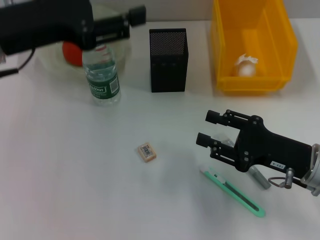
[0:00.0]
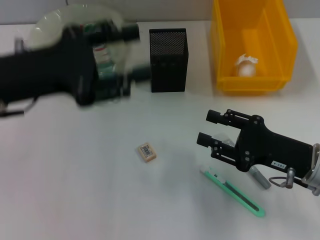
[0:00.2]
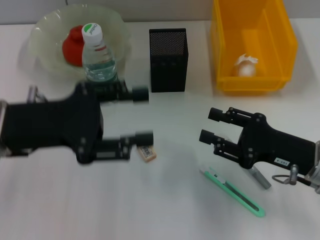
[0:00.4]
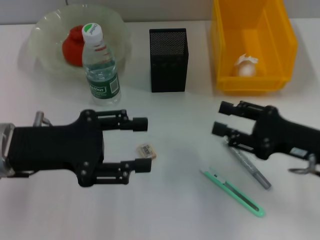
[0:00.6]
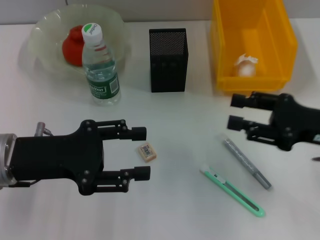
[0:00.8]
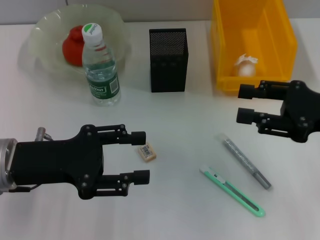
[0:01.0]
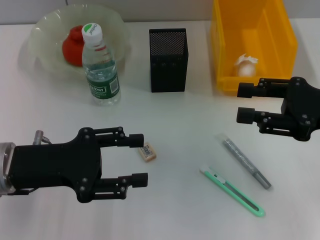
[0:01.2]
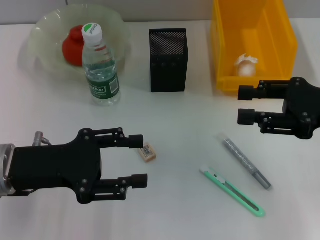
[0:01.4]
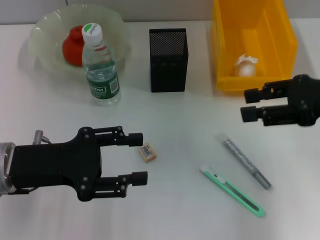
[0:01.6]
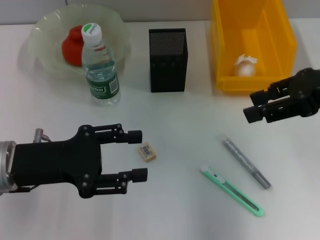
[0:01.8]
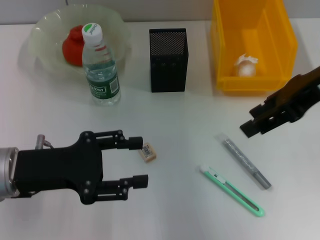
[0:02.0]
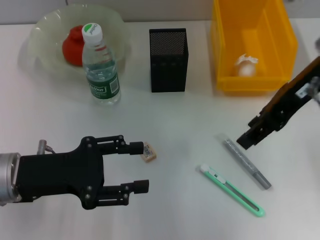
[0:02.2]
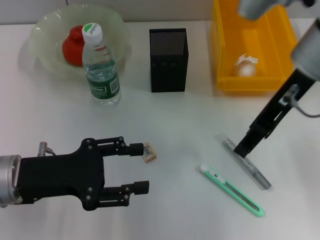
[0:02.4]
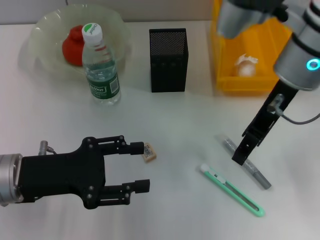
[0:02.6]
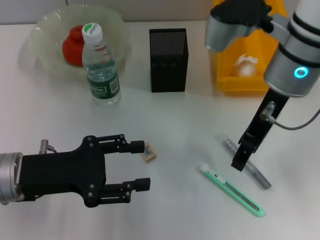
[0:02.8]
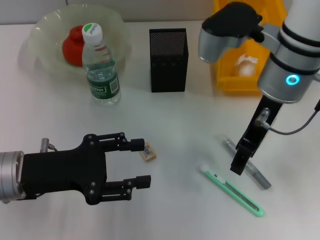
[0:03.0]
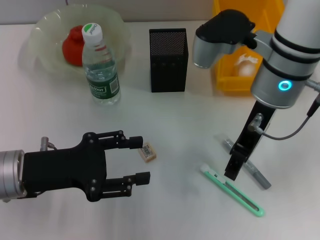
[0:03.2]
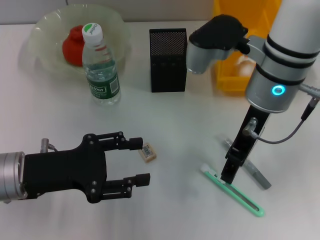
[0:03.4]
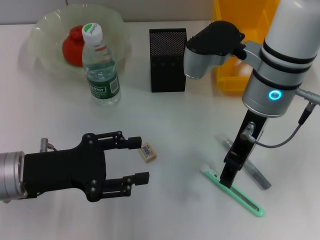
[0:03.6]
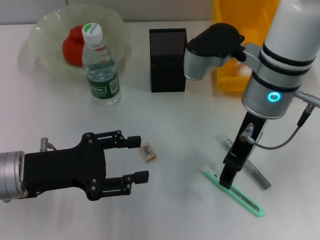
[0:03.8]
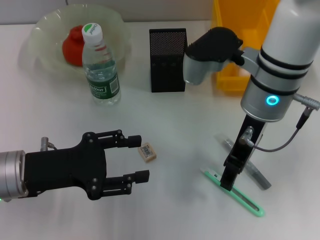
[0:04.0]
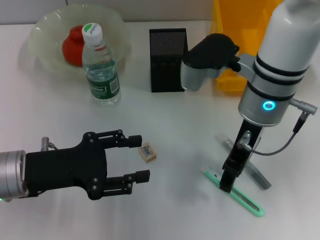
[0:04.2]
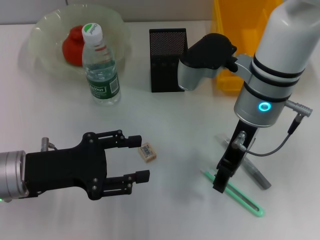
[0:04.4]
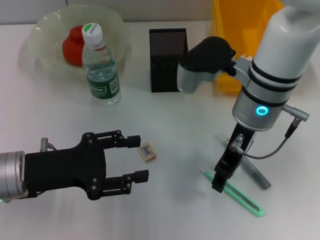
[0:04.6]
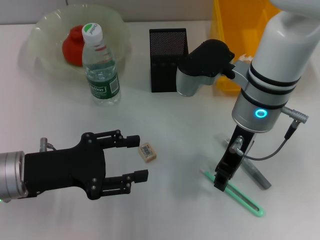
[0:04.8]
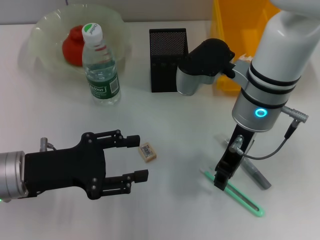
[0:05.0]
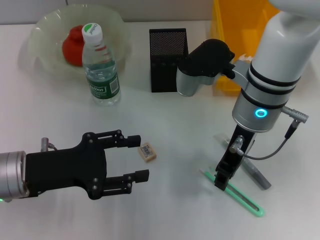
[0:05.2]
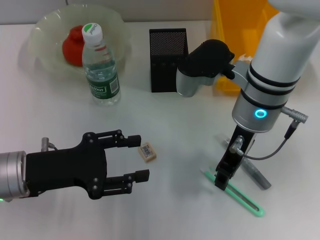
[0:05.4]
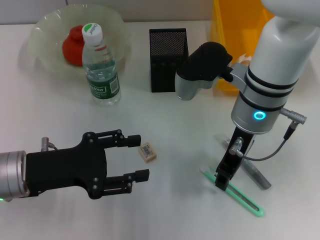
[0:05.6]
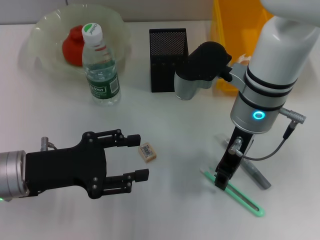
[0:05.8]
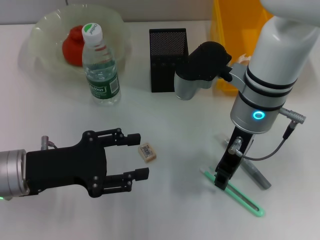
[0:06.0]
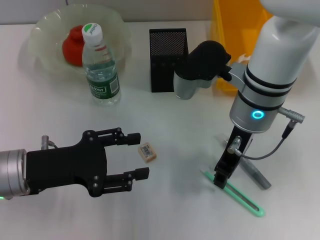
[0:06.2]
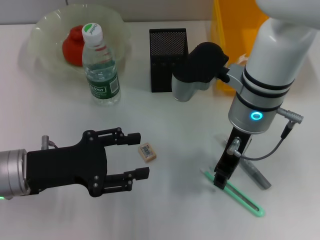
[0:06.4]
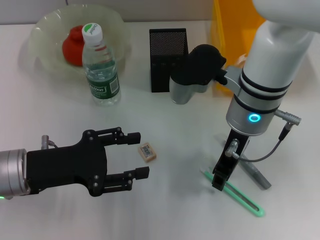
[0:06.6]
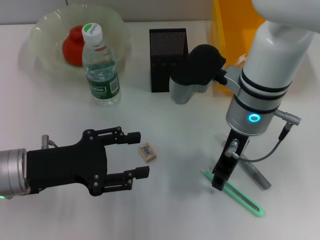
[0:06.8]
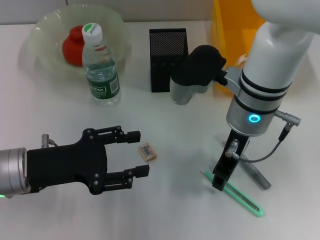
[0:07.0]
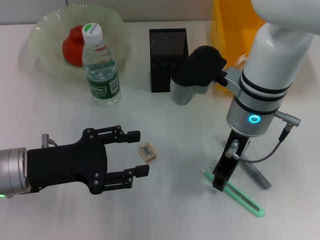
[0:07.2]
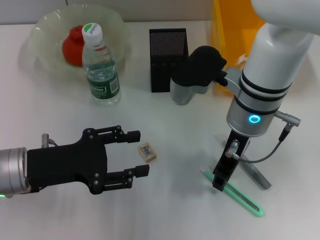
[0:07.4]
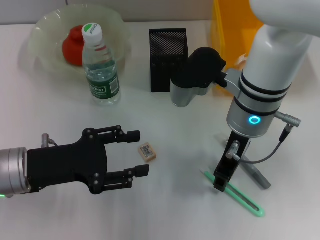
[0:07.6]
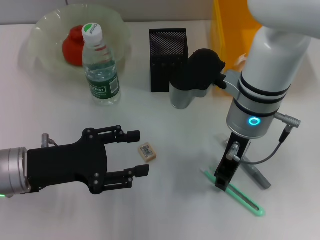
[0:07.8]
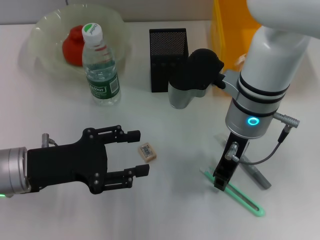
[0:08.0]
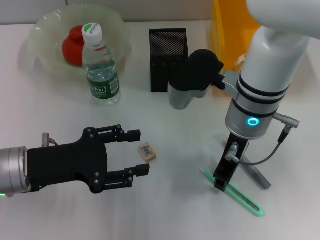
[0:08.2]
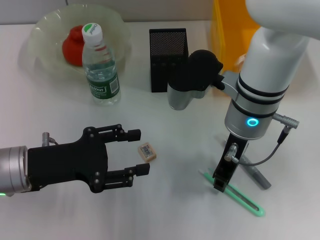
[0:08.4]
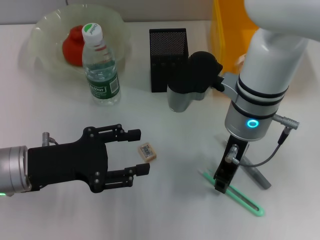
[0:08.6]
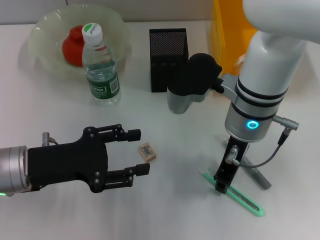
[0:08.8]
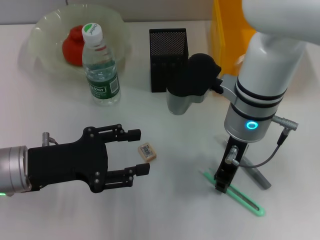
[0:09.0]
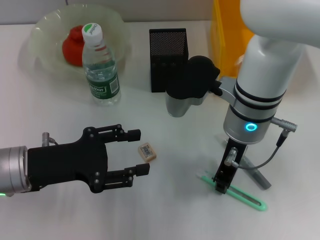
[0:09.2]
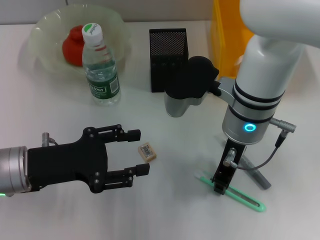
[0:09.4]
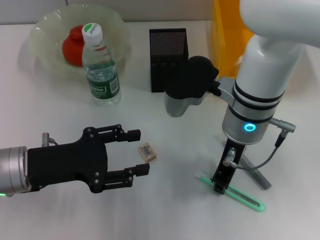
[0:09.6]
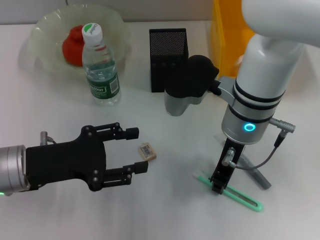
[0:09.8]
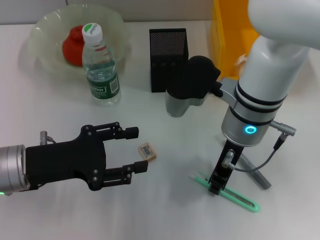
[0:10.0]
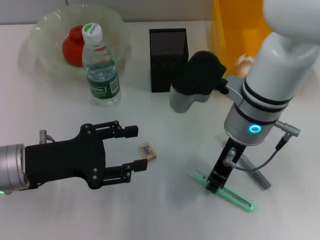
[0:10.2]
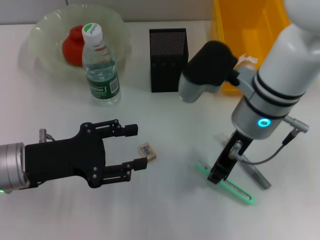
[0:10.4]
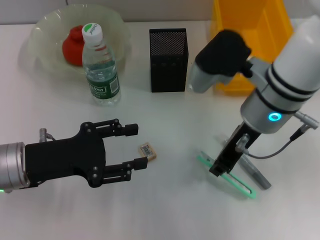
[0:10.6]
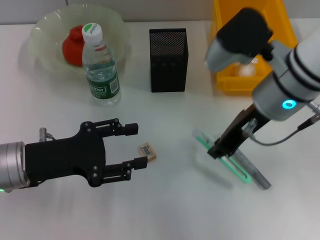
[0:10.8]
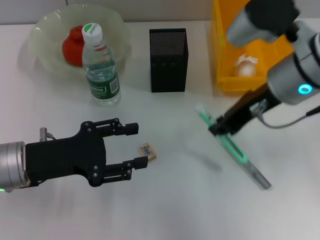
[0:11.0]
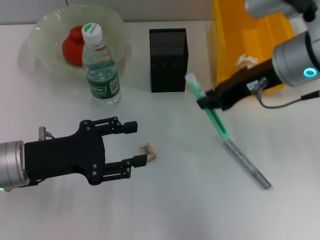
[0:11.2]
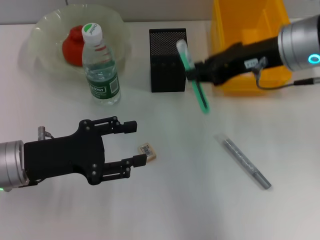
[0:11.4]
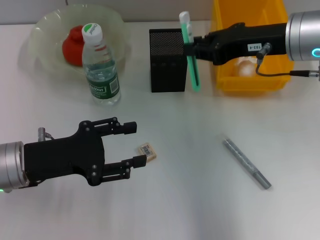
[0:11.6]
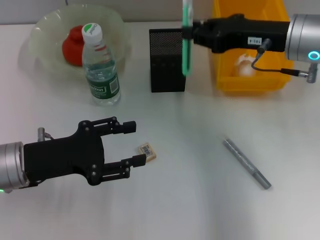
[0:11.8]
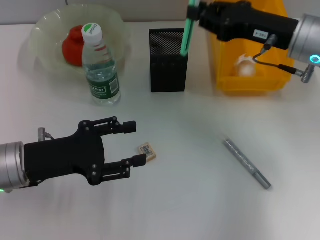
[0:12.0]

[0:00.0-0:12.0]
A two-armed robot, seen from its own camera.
Step, 0:00.0 to 0:10.0: Grab the blue utility knife with the right hand.
0:00.0 to 0:01.6: The right gripper shifts roughly 15 cm upward; the left gripper heads downward and backward, covering approximately 15 cm.
0:01.6 to 0:03.0: The right gripper moves to the left, about 15 cm.
0:03.0 to 0:04.4: The grippers stay close to where they were, moving slightly.
0:04.4 to 0:06.0: Neither gripper changes place.
0:06.0 to 0:07.6: The two grippers keep their place.
0:07.6 to 0:09.0: Neither gripper changes place.
0:09.0 to 0:10.4: There are only small adjustments of the grippers.
0:10.4 to 0:12.0: The right gripper travels to the right by some 10 cm.

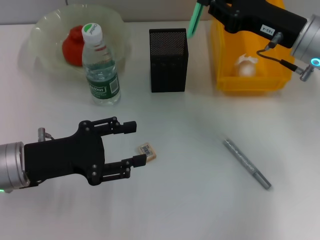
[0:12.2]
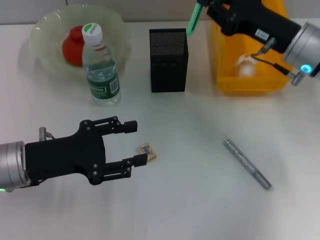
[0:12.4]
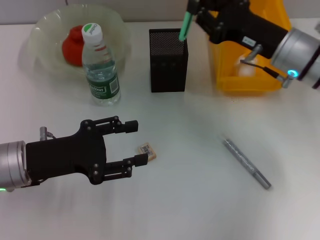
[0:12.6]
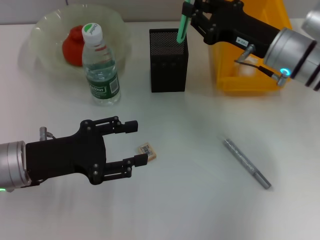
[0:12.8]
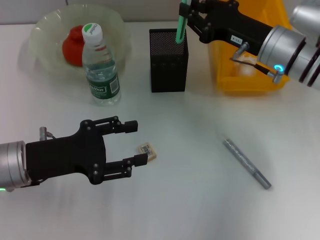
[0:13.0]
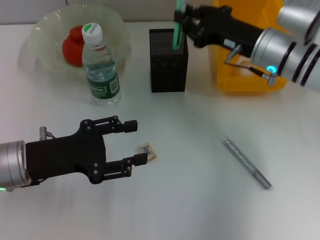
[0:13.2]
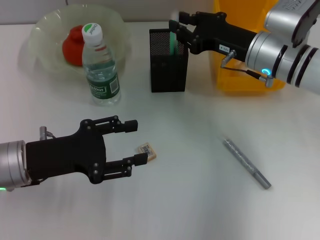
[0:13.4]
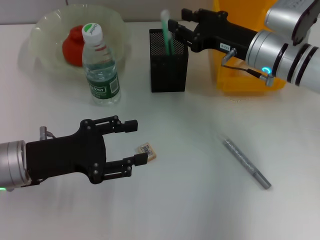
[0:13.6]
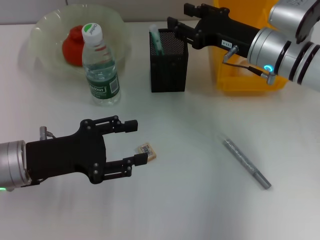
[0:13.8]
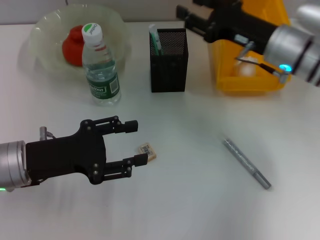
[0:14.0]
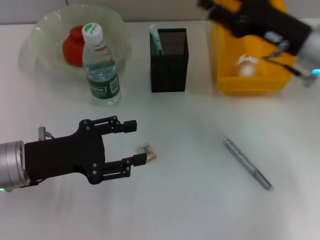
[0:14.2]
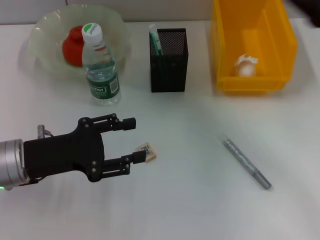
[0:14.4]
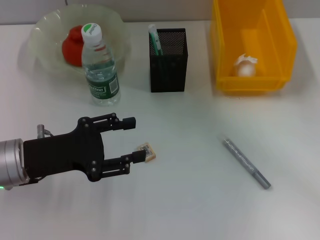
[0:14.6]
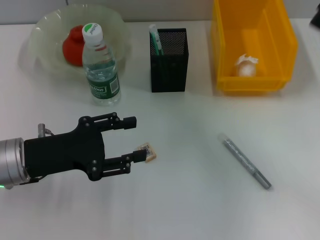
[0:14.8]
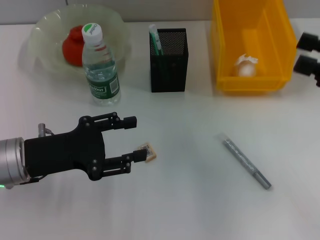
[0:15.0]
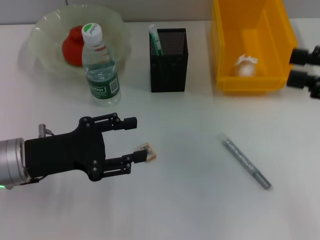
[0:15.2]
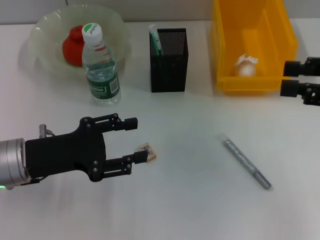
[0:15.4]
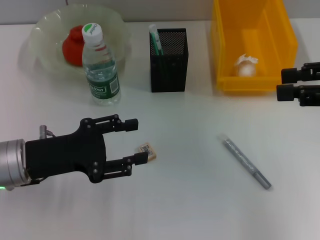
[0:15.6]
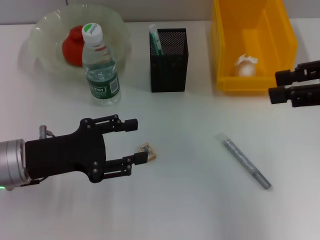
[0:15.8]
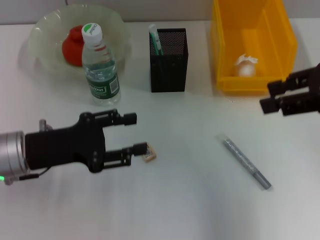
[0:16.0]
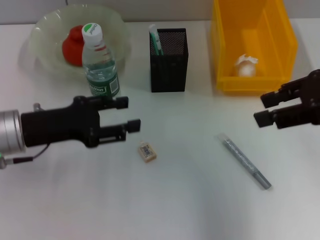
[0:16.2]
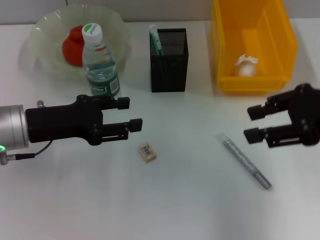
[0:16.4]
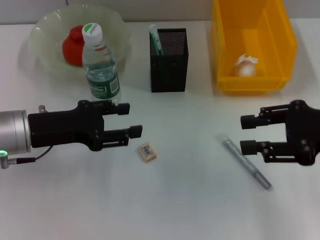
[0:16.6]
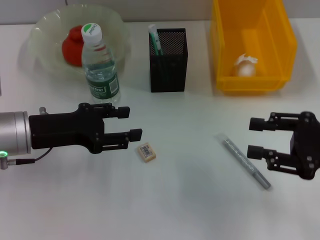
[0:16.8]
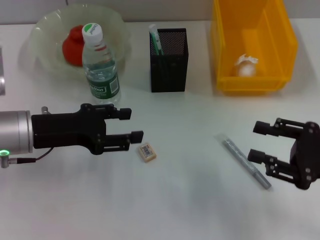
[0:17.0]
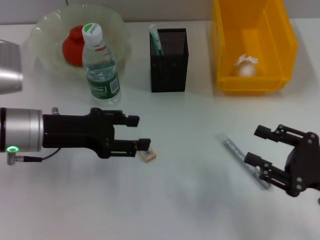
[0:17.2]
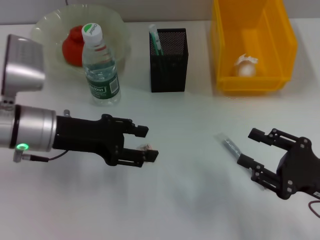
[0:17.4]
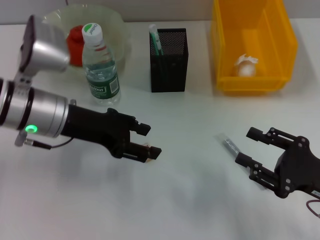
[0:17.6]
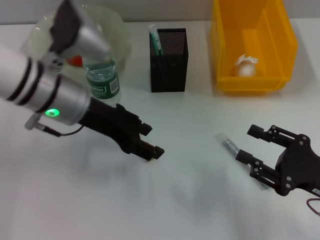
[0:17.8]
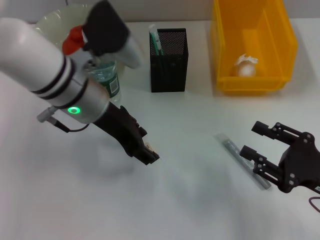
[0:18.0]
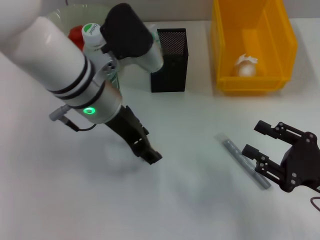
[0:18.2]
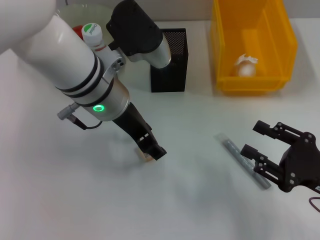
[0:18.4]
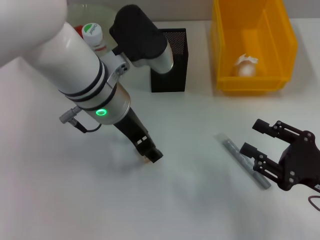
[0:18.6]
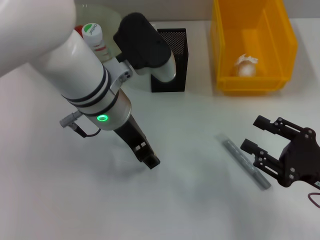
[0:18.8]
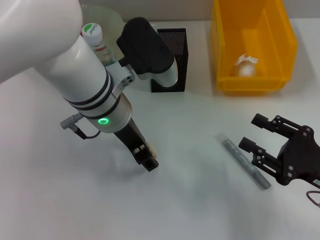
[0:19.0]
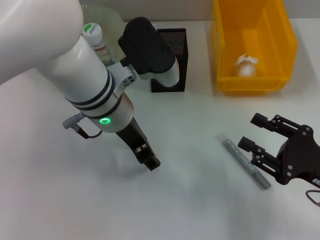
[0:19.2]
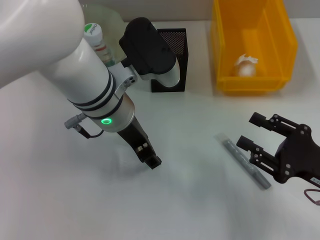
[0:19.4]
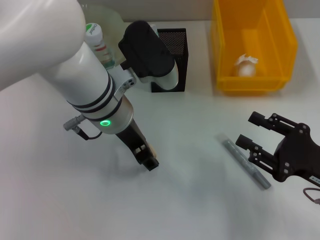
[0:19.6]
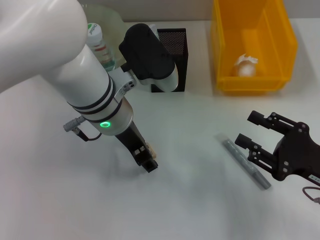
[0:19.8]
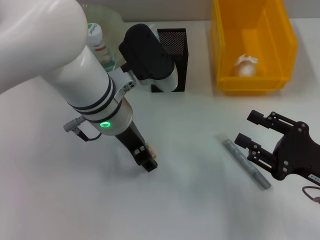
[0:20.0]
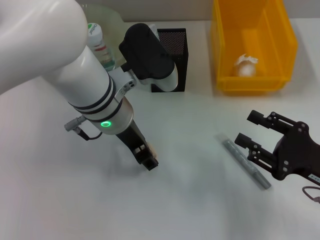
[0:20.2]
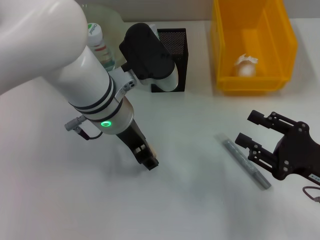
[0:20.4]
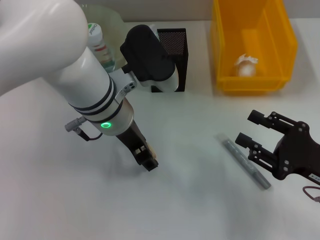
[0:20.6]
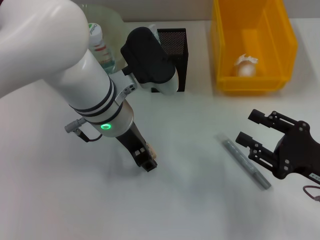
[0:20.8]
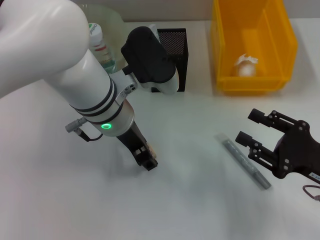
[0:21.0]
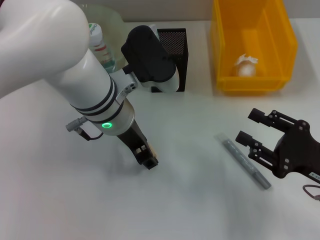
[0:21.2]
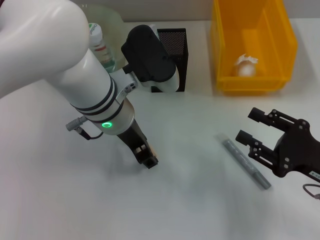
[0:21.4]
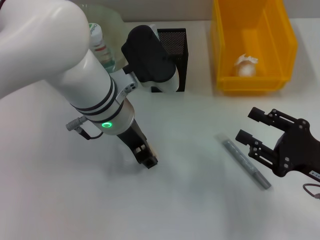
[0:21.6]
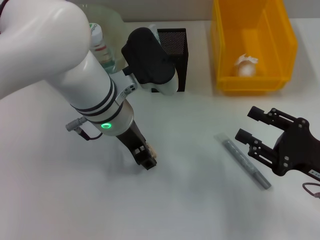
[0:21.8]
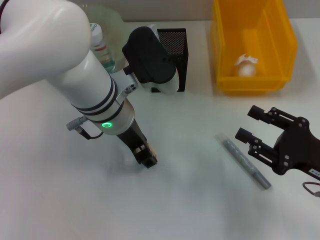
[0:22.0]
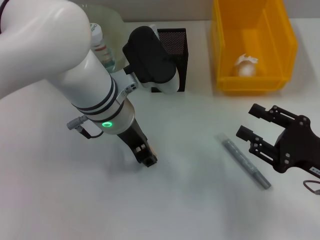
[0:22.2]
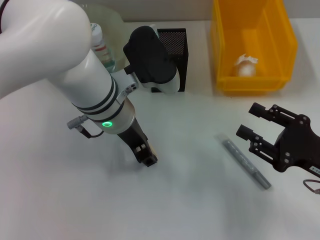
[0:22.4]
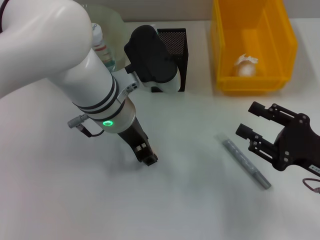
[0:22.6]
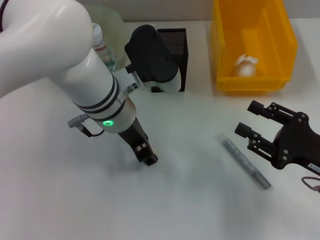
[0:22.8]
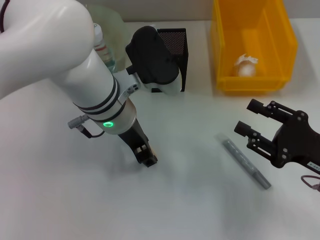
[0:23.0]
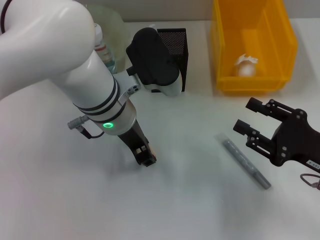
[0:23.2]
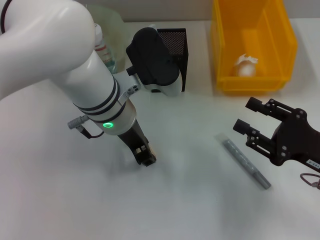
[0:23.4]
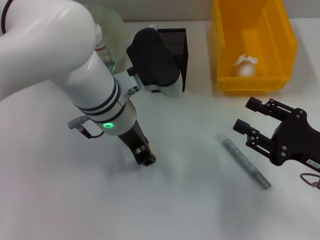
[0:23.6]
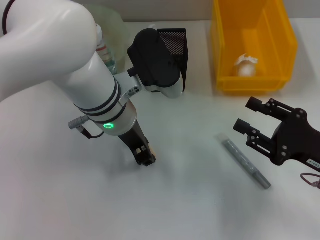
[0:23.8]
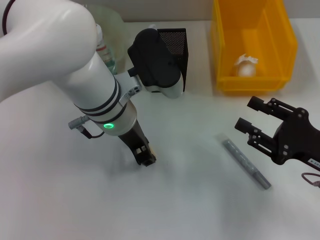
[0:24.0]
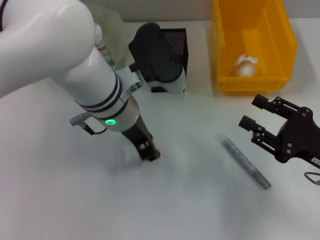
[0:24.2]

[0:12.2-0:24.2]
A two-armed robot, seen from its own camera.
0:12.2 to 0:13.8: The right gripper moves roughly 5 cm.
0:13.8 to 0:15.2: The right gripper travels to the right, backward and upward by about 20 cm.
0:16.6 to 0:18.2: The left gripper heads to the right and upward, covering roughly 15 cm; the right gripper moves downward and backward, approximately 15 cm.
0:18.2 to 0:19.8: There are only small adjustments of the grippers.
0:19.8 to 0:22.6: Both grippers stay put.
0:22.6 to 0:24.2: The two grippers keep their place.
